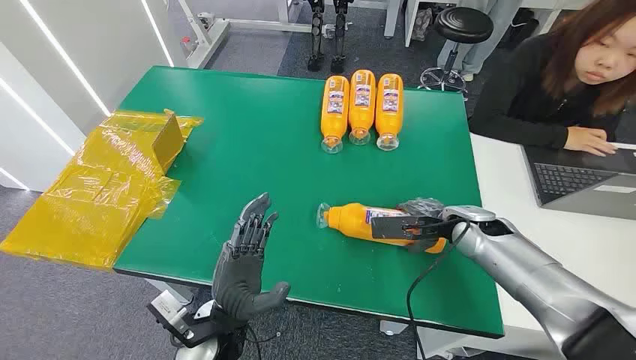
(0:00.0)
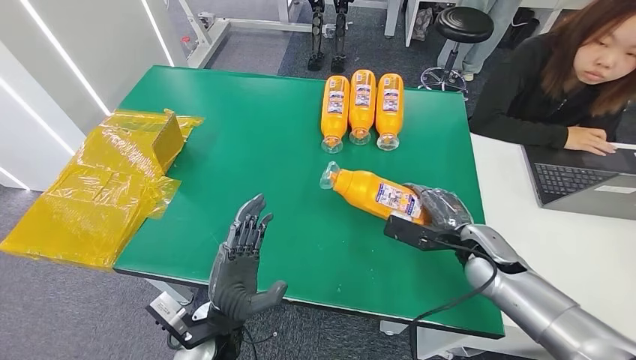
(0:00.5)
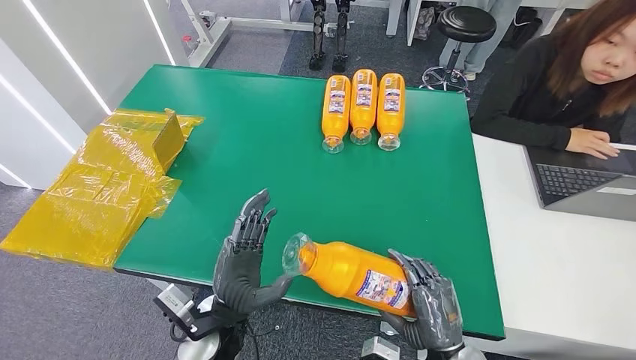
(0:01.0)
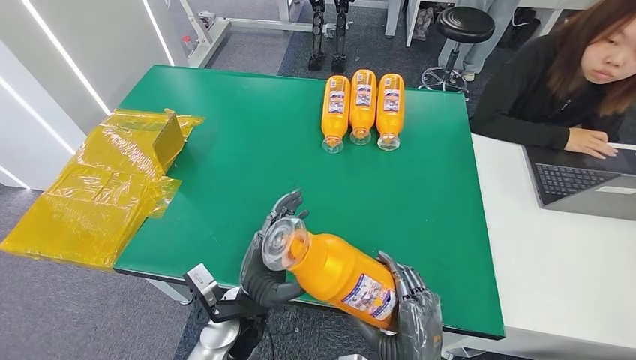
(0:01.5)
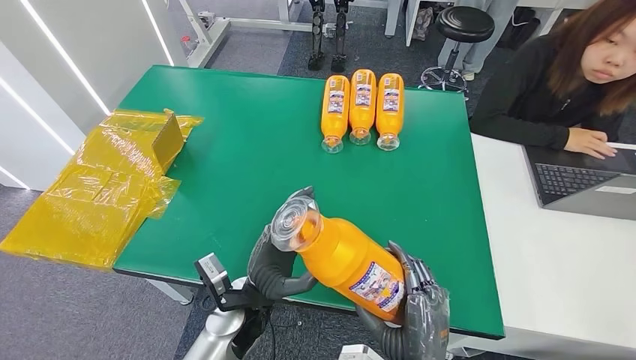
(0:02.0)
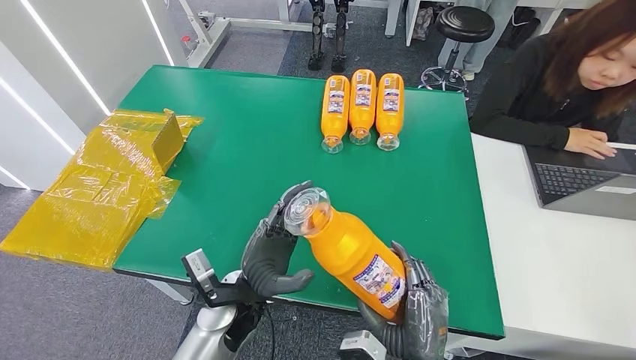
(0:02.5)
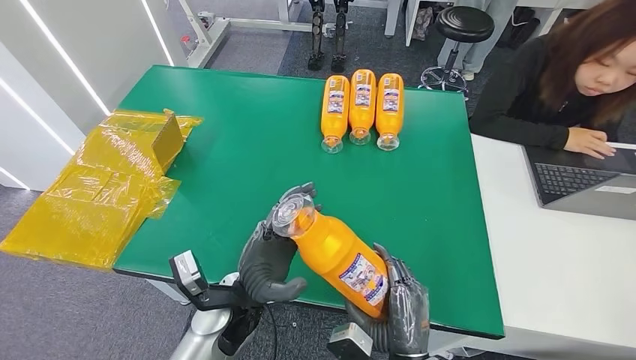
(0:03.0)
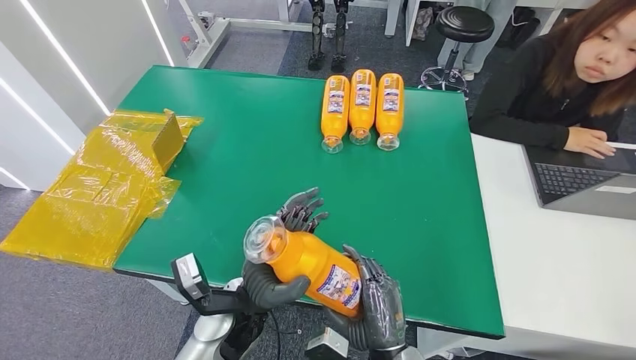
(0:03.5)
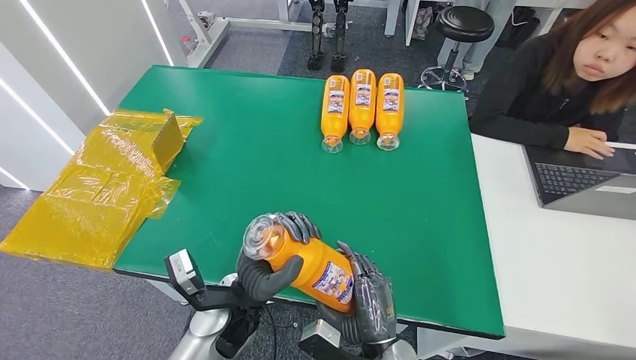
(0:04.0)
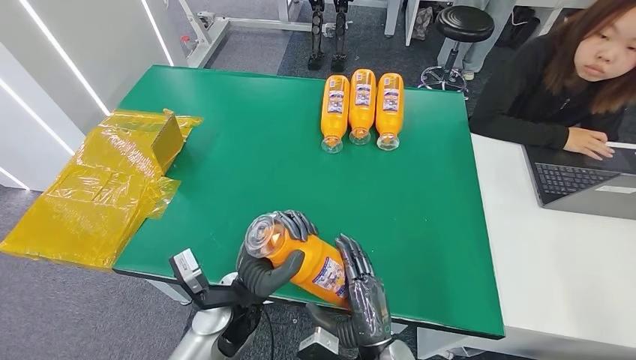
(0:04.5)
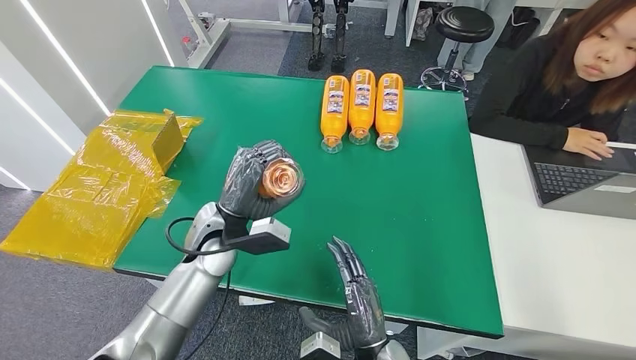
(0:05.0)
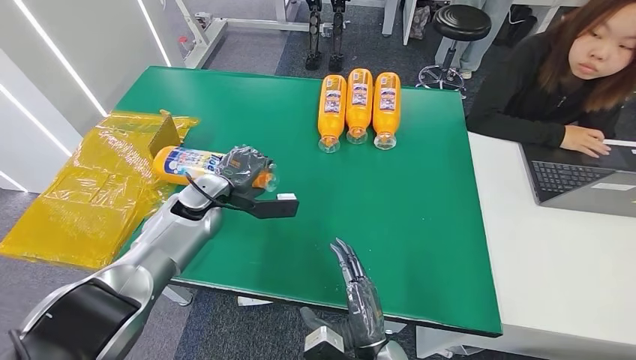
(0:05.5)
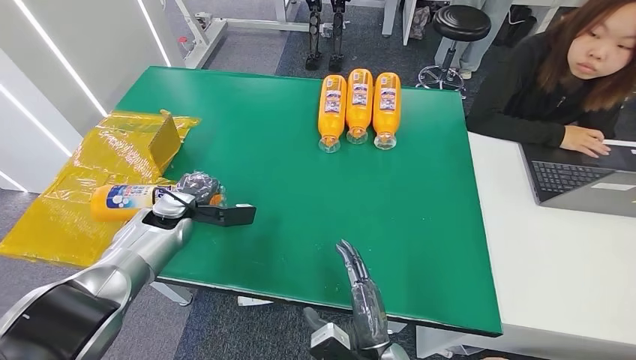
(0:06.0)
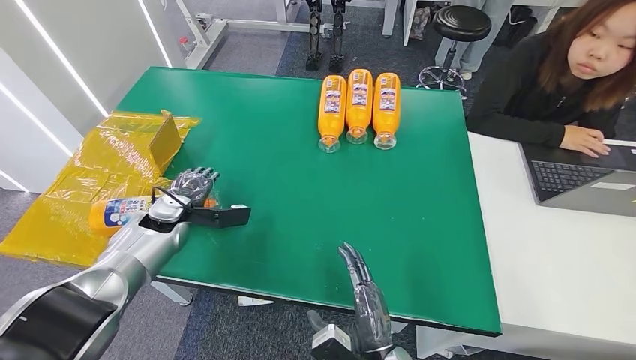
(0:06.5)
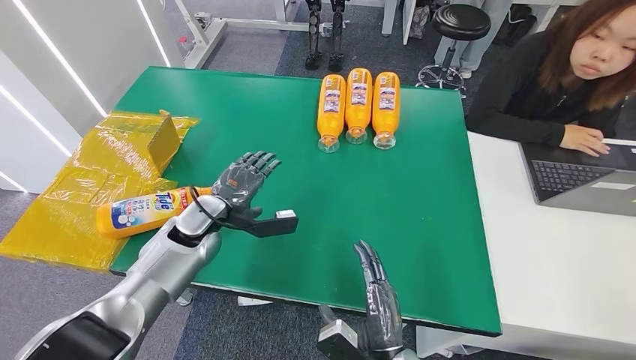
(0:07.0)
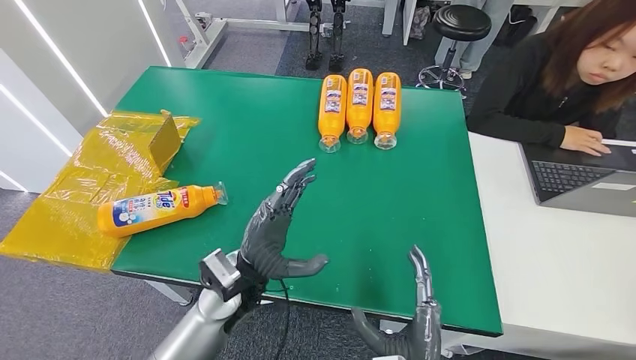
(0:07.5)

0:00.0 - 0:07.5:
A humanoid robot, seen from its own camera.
Step, 0:00.0 - 0:02.5: Pick up the bottle from the table.
Step, 0:03.0 - 0:07.5: Turn the bottle to the front side.
0:02.0 - 0:04.0: The right hand shifts by about 10 cm.
0:05.5 - 0:07.5: The right hand moves to the right, approximately 5 cm; the left hand heads backward and to the right, covering about 20 cm.

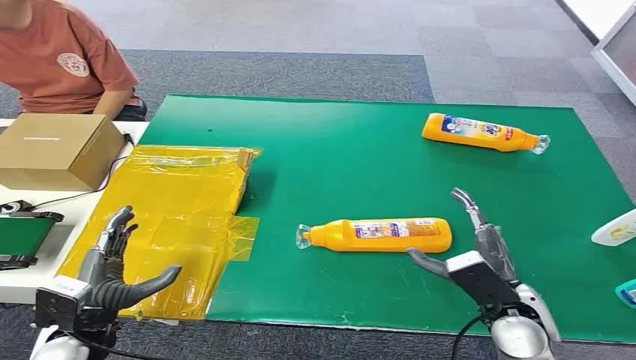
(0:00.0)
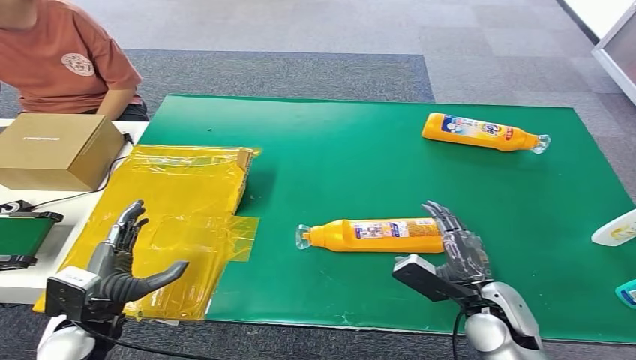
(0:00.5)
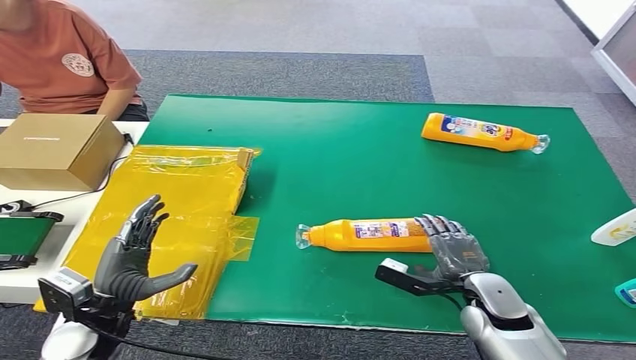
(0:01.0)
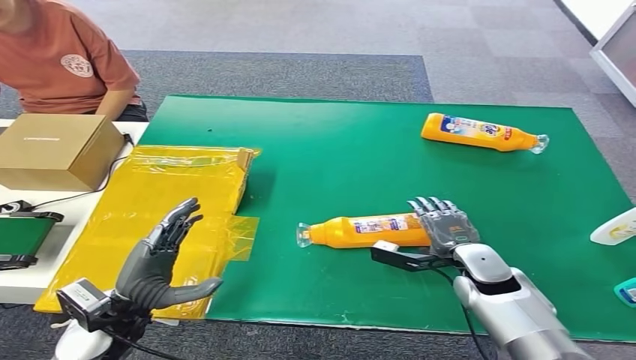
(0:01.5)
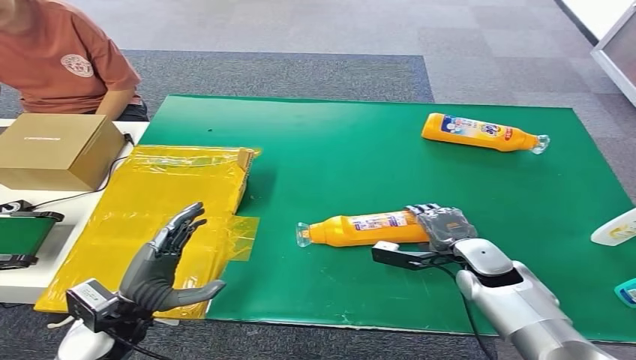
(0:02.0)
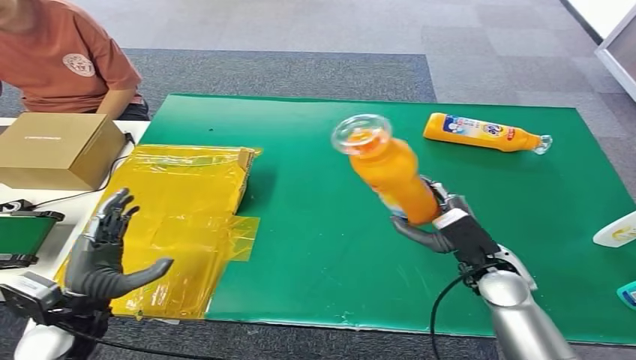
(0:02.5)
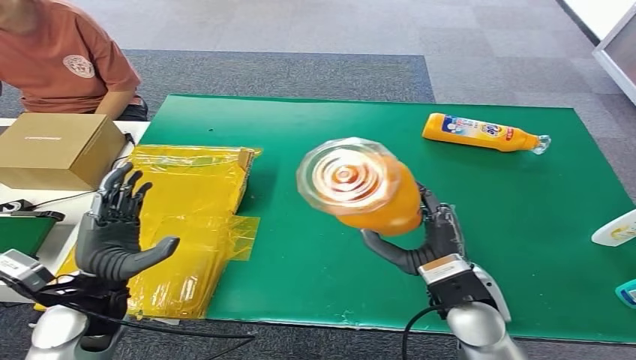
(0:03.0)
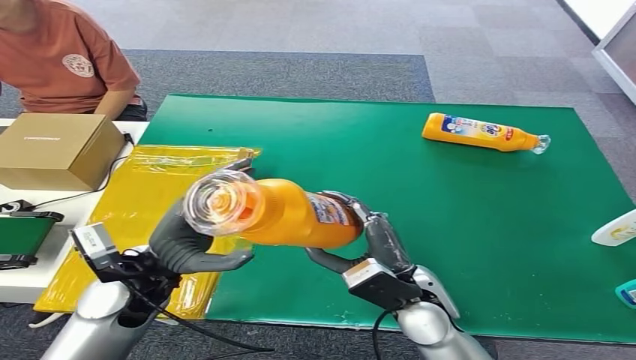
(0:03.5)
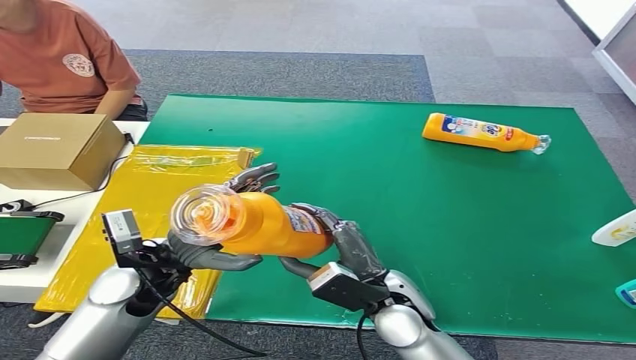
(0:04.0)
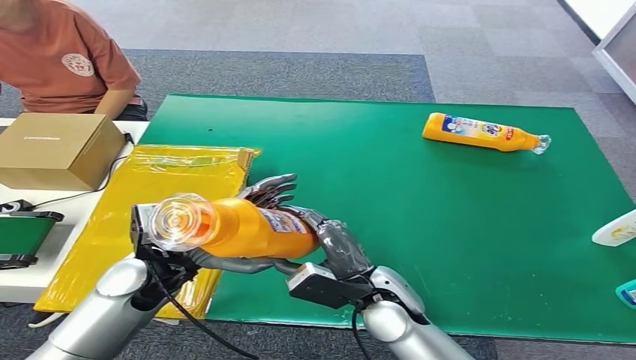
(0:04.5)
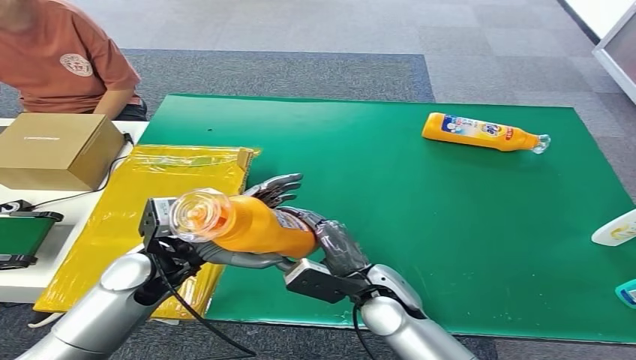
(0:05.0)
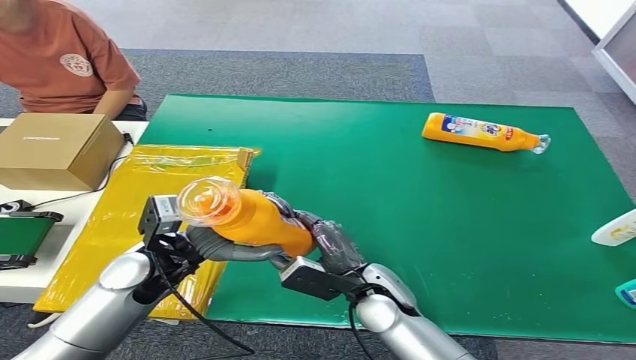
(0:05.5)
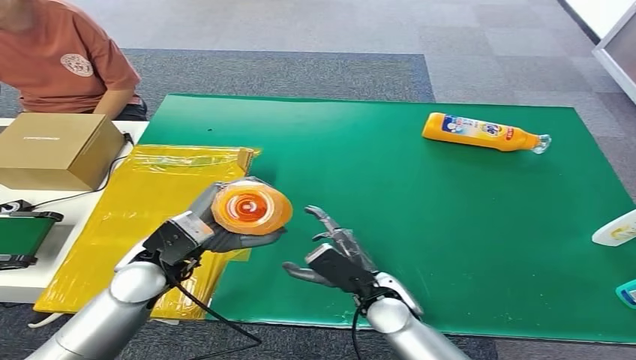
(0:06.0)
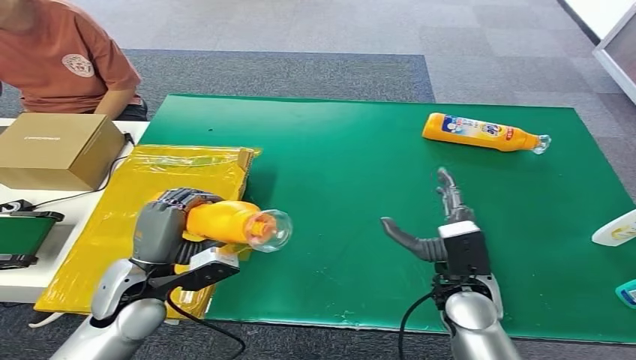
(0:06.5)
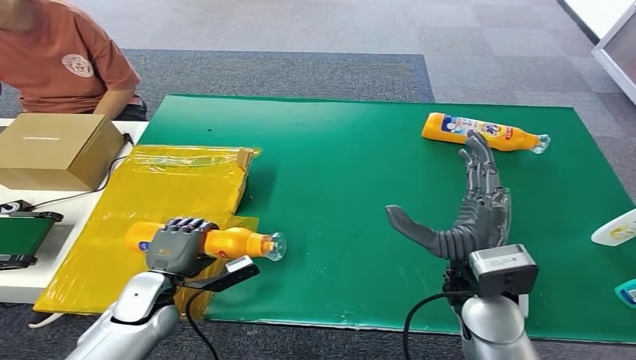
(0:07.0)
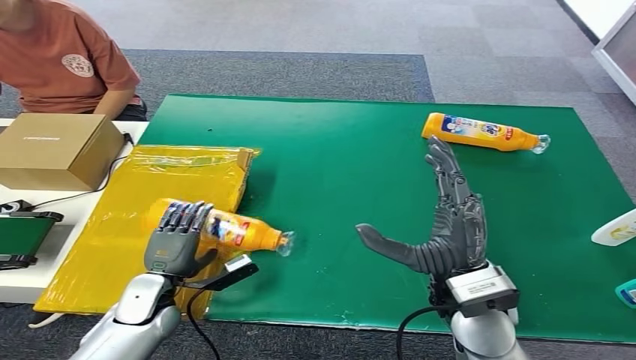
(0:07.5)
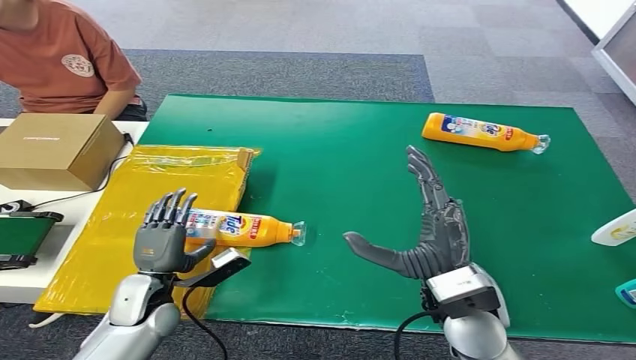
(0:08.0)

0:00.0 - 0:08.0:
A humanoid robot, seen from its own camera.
Step, 0:00.0 - 0:02.5: Pick up the bottle from the table.
Step, 0:03.0 - 0:08.0: Turn the bottle to the front side.
0:02.0 - 0:04.0: The right hand heads to the left and backward, covering some 20 cm, while the left hand shifts approximately 10 cm forward and upward.
0:04.0 - 0:06.0: The right hand changes place by about 5 cm.
0:06.0 - 0:08.0: The right hand travels upward and to the right by roughly 15 cm. Meanwhile the left hand shifts some 15 cm downward and to the left.
